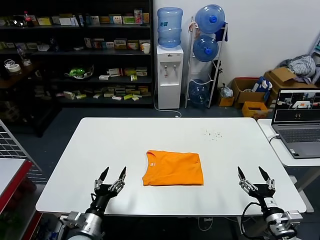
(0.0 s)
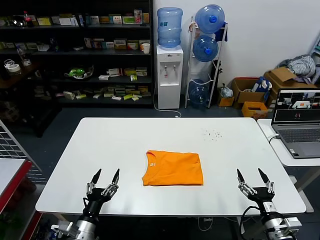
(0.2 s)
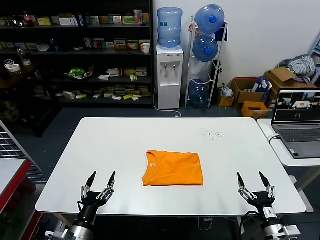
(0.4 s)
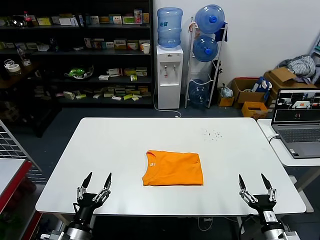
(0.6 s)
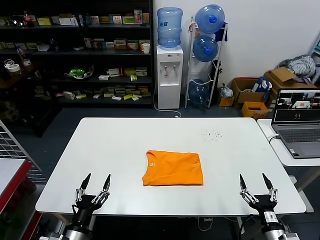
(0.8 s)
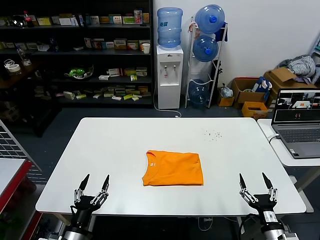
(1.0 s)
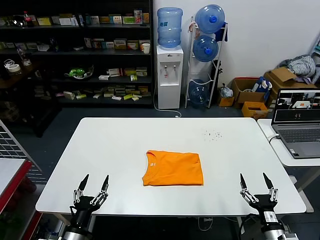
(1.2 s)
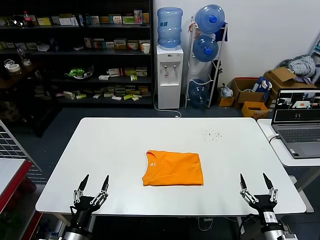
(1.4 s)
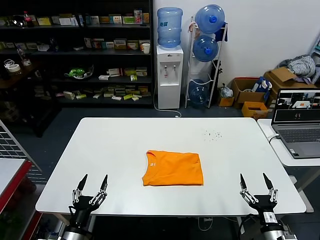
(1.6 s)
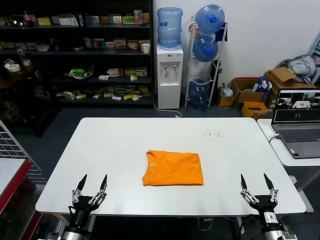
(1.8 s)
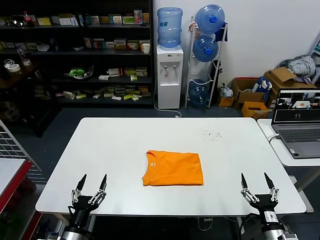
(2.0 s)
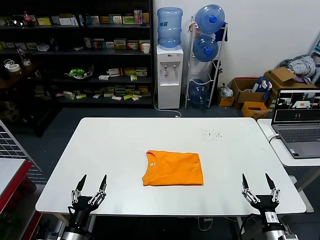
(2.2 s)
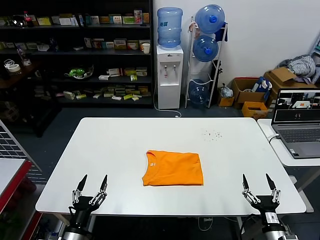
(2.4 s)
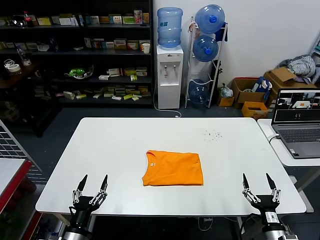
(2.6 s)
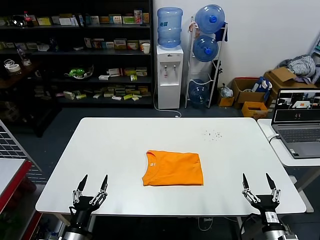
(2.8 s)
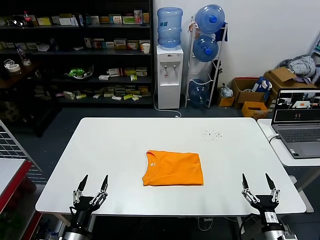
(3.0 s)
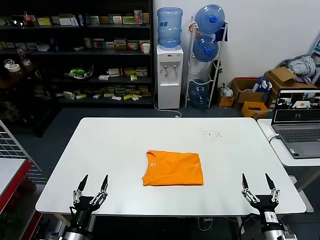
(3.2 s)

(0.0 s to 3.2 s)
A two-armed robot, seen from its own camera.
Task of the whole recording: fold and organize the clothes.
0.0 s - 1.6 s: The left gripper is displaced backward by about 5 cm, while the right gripper travels downward by some 5 cm.
1.6 s - 3.2 s: The two grippers keep their place.
